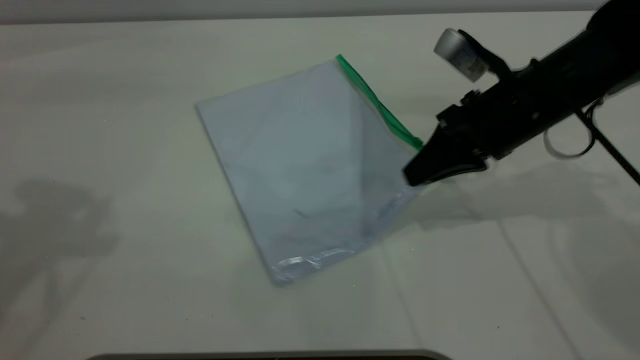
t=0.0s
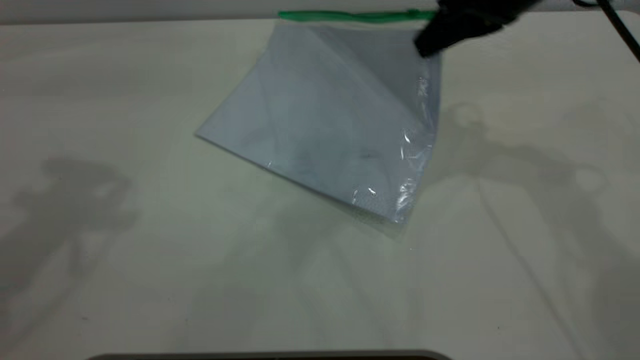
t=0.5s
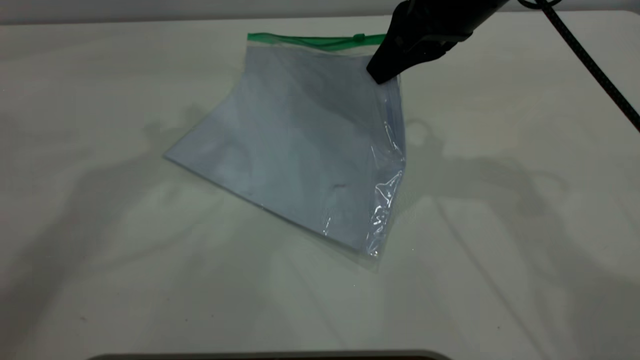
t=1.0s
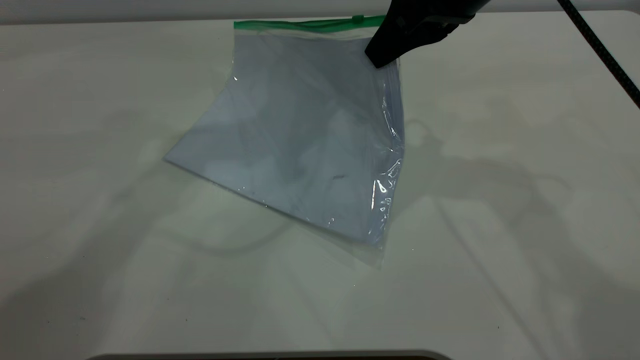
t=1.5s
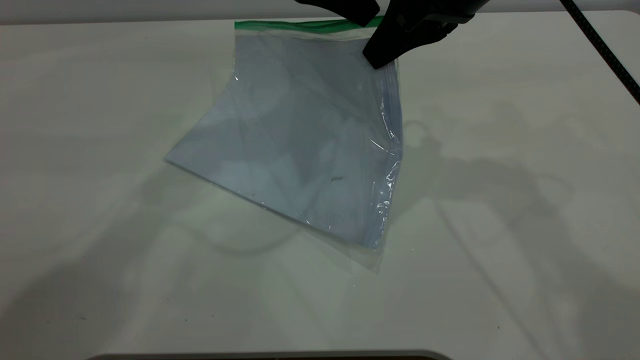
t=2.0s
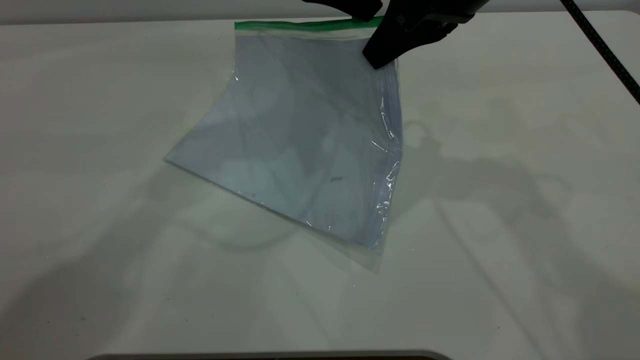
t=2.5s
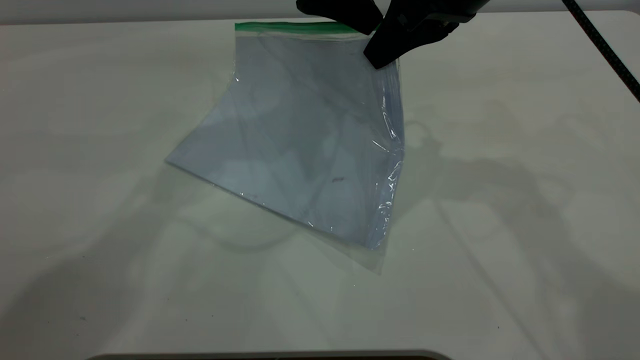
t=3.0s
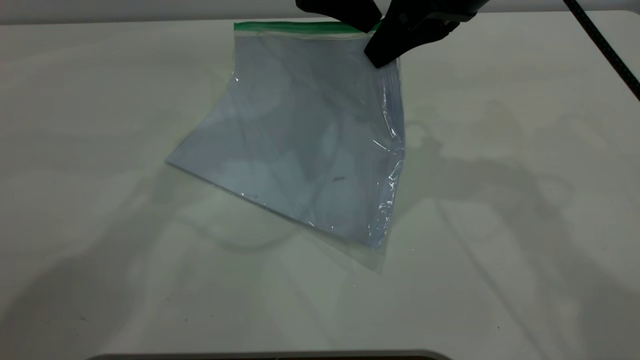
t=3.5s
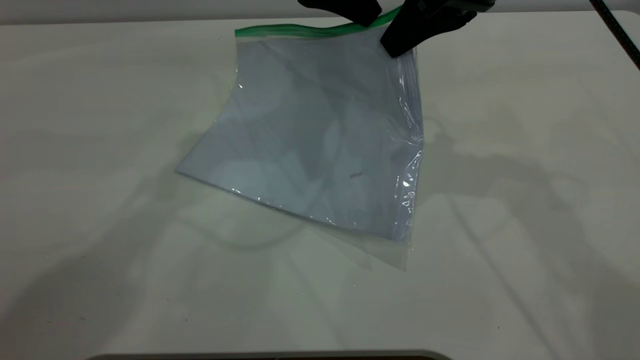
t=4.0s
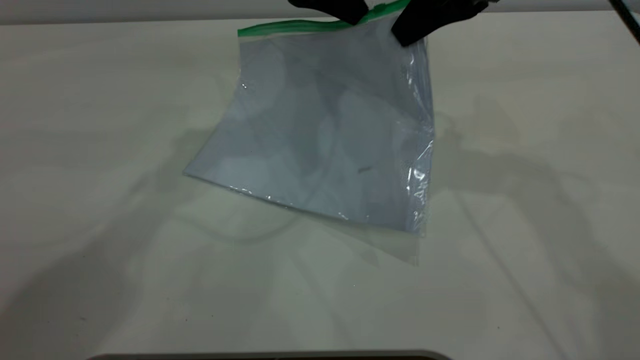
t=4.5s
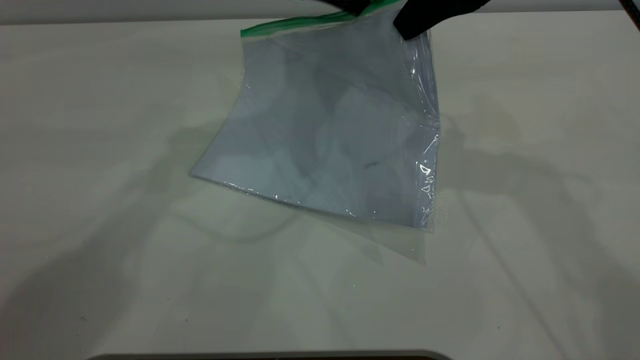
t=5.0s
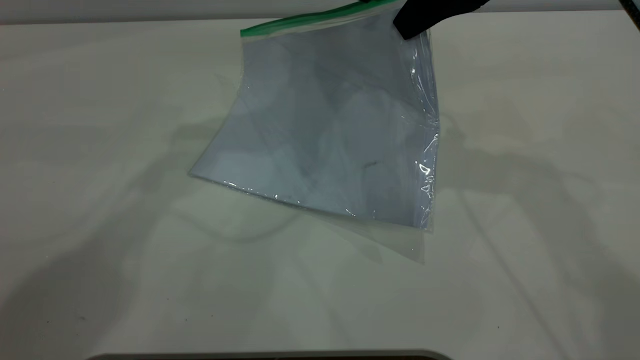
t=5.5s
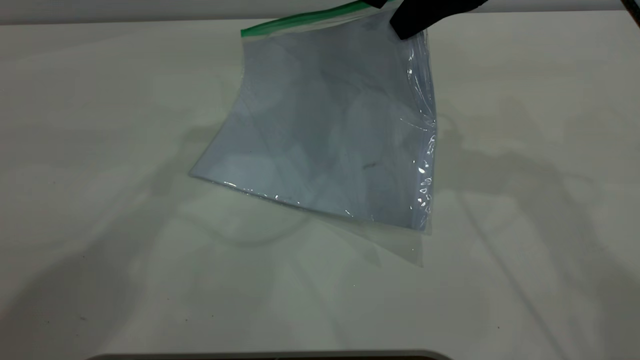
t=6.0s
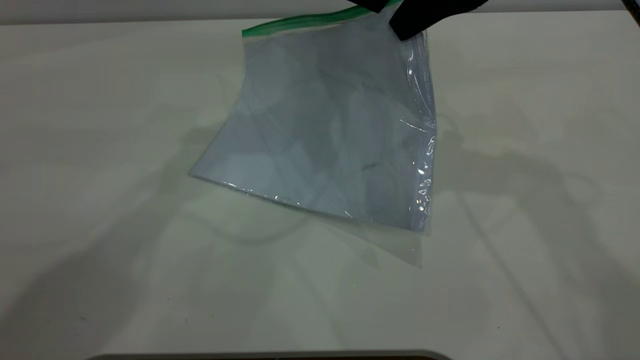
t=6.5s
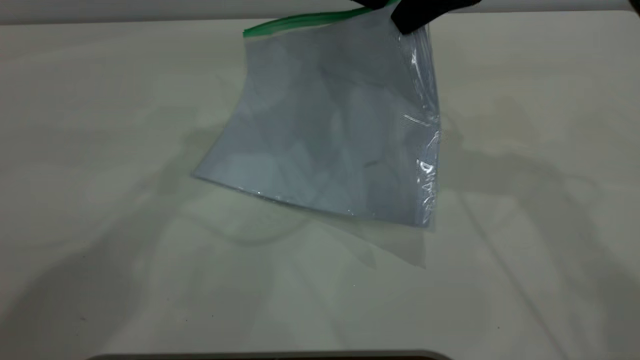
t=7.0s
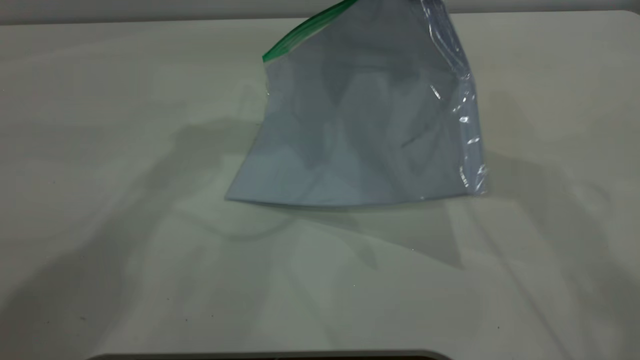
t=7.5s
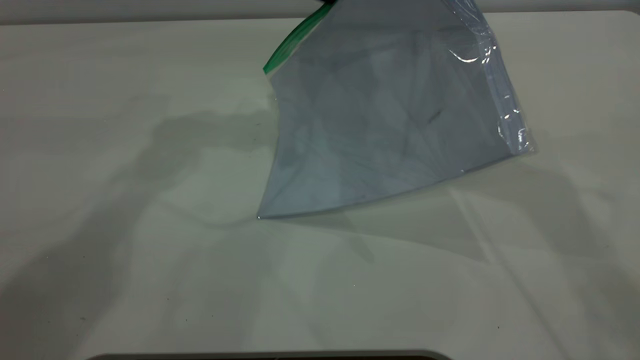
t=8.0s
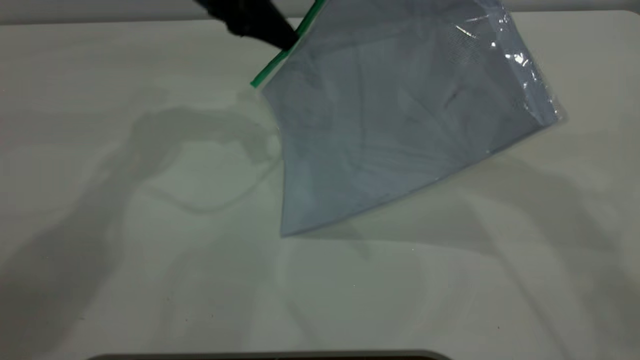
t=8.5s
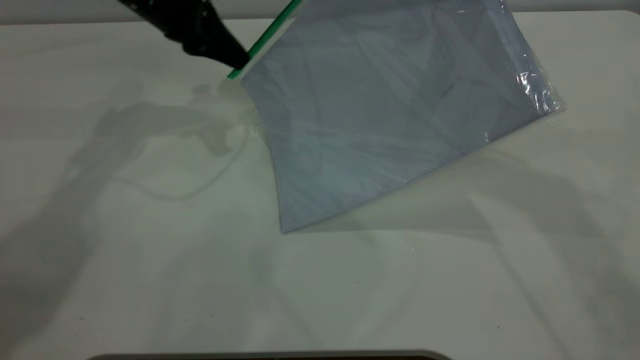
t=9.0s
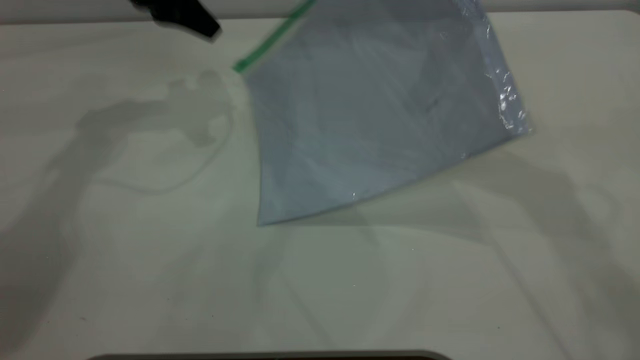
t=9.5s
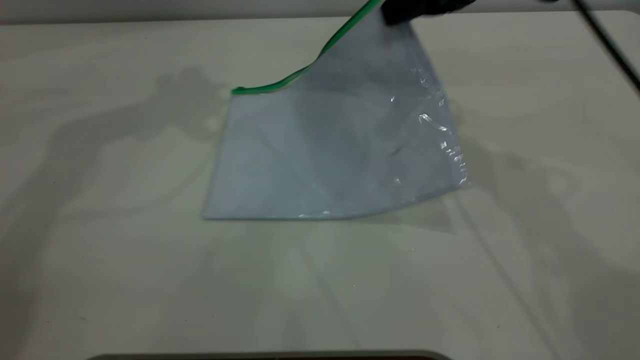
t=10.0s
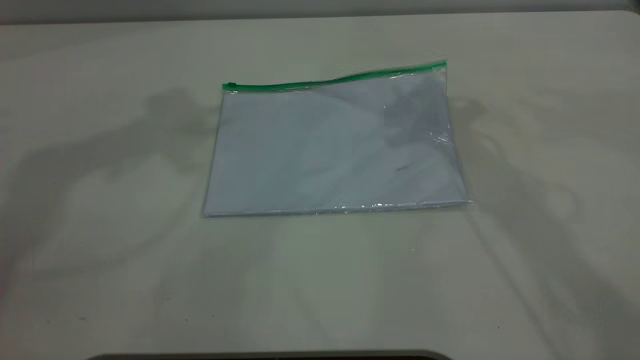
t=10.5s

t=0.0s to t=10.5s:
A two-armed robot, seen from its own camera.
Step, t=0.0s to t=9.0s: Pulling up the zipper on the transparent plastic bag with the left gripper to close it.
Step, t=9.5s to t=10.0s: Place the transparent plastic bag.
t=0.0s to t=2.0s: The left gripper travels to the right, forward and downward by roughly 30 cm. Meanwhile the right gripper is displaced upward and to the left by approximately 15 cm.
t=2.0s to t=4.0s: The left gripper closes up.
t=4.0s to t=6.5s: The left gripper opens, then closes once more.
t=6.5s to t=8.5s: The right gripper travels upward by roughly 10 cm; the left gripper shifts some 10 cm to the left and downward.
t=8.5s to t=10.5s: The left gripper goes approximately 30 cm upward, and opens its fingers; the right gripper reaches about 10 cm downward, then returns, and opens up.

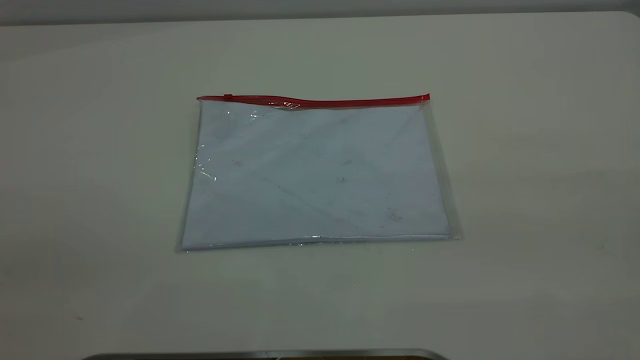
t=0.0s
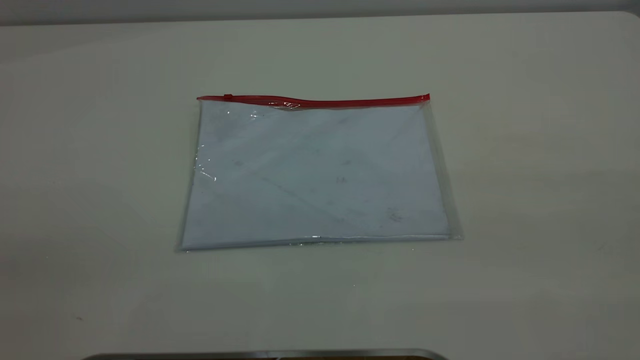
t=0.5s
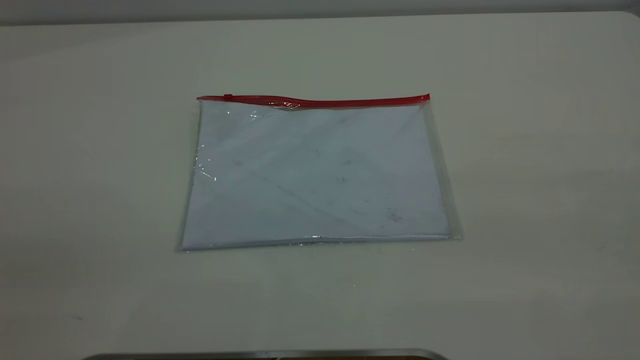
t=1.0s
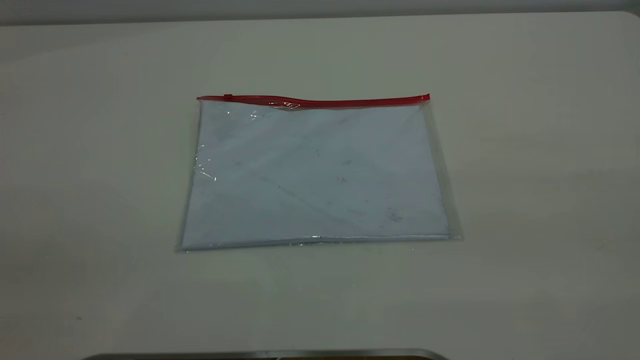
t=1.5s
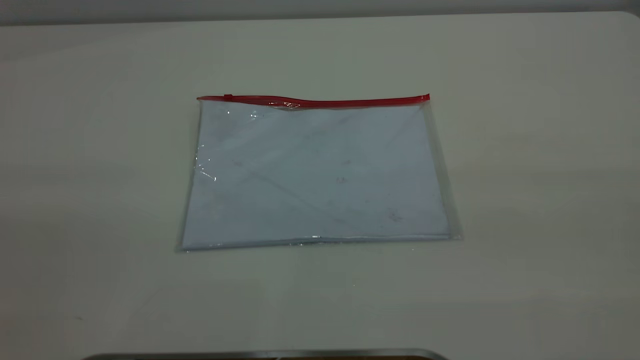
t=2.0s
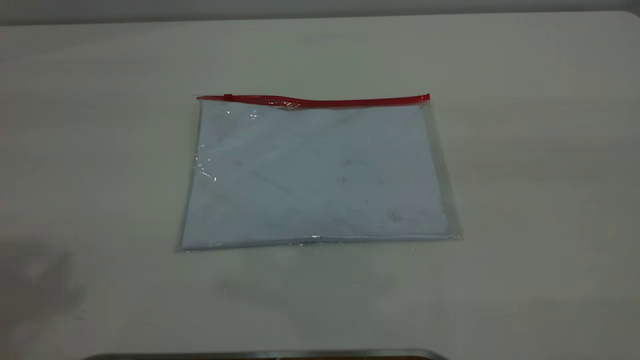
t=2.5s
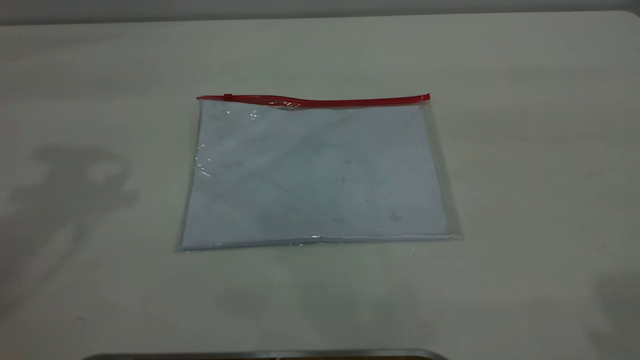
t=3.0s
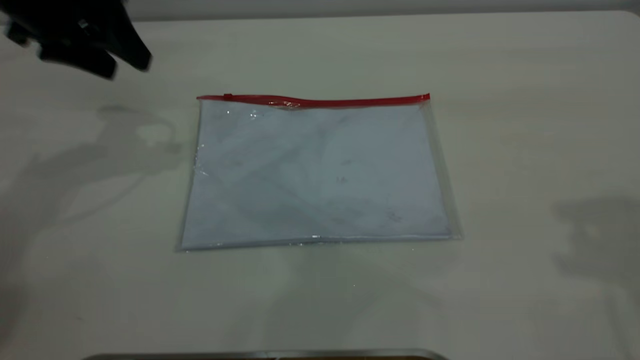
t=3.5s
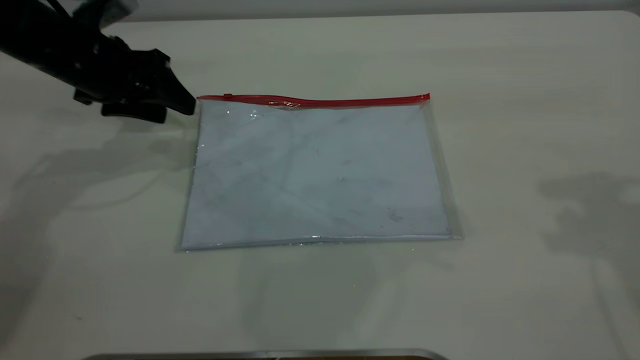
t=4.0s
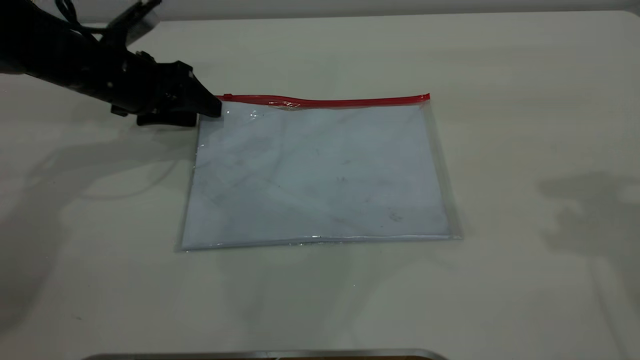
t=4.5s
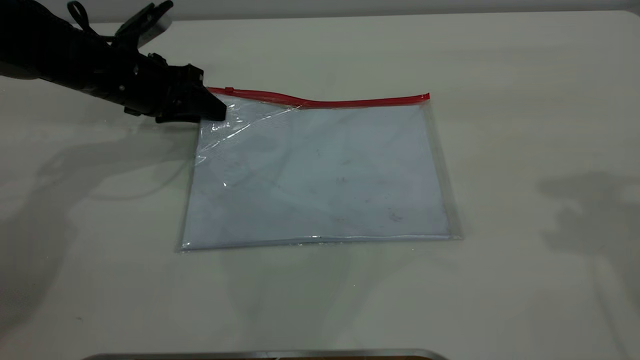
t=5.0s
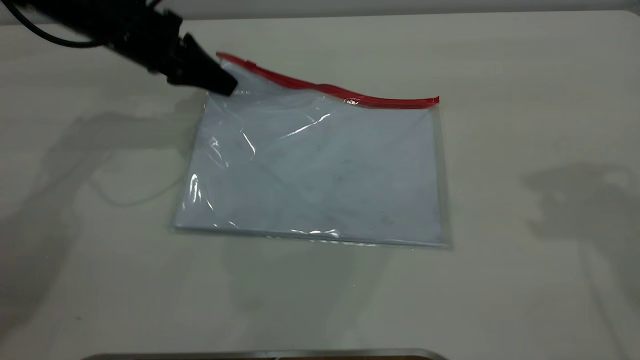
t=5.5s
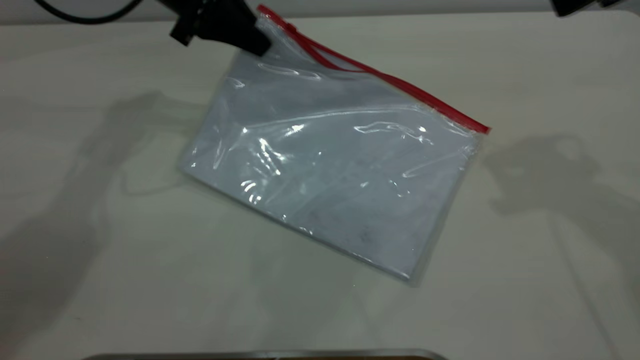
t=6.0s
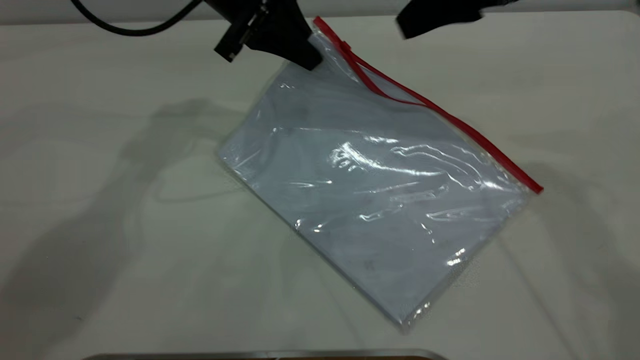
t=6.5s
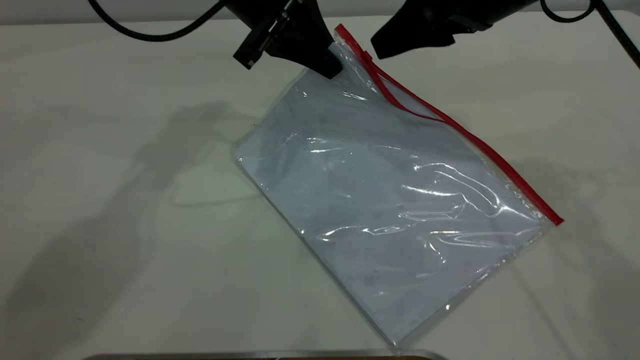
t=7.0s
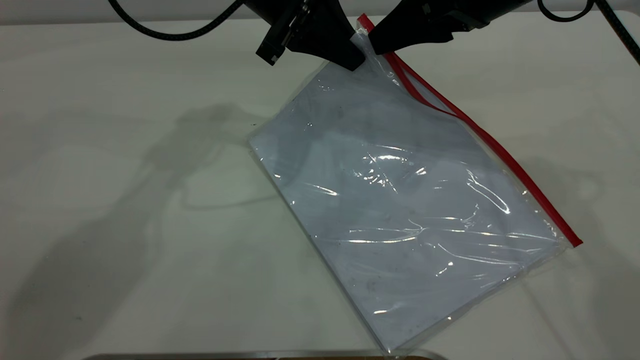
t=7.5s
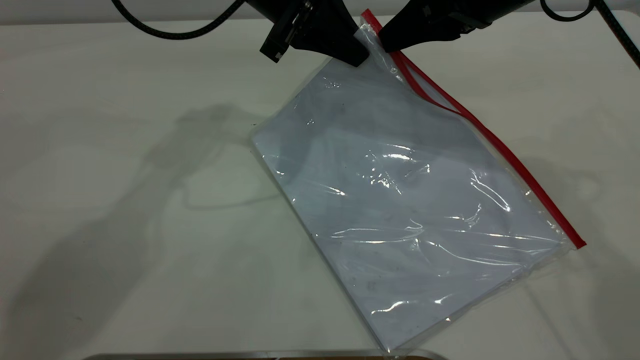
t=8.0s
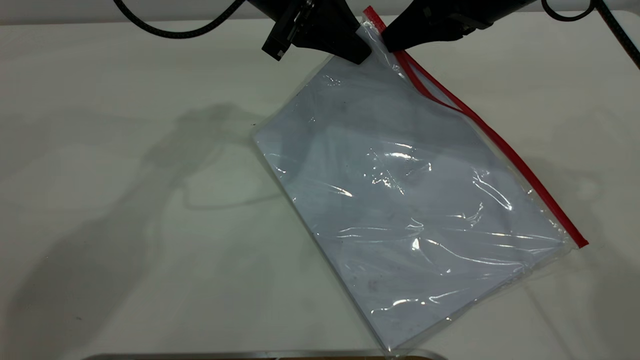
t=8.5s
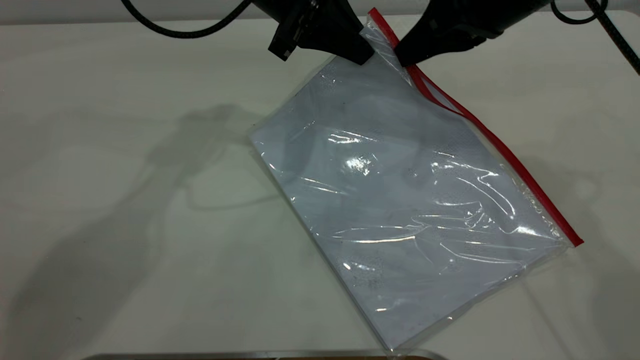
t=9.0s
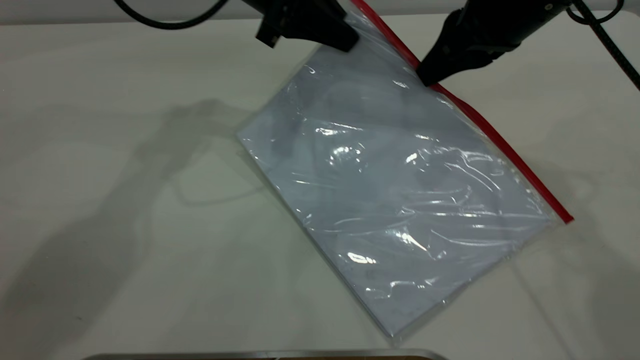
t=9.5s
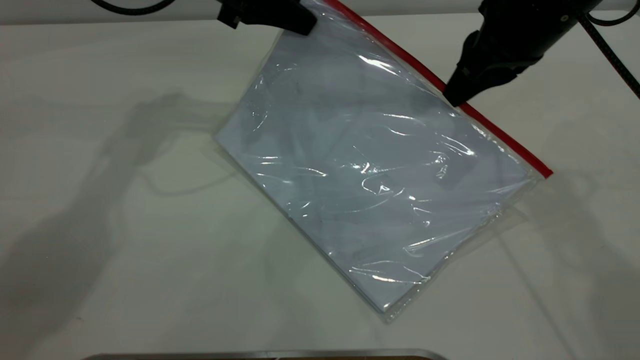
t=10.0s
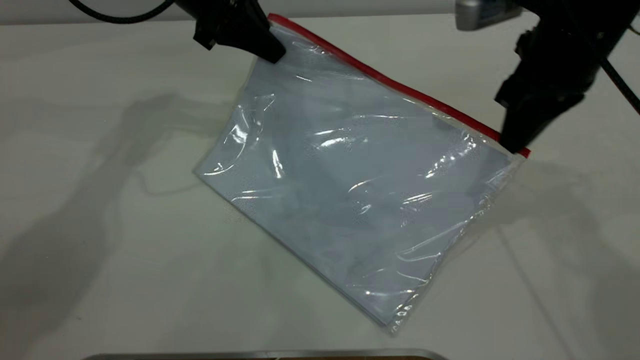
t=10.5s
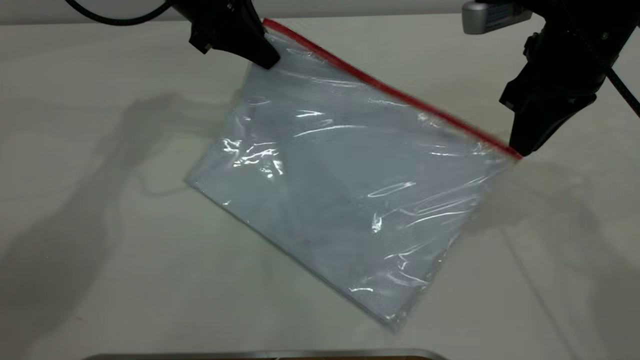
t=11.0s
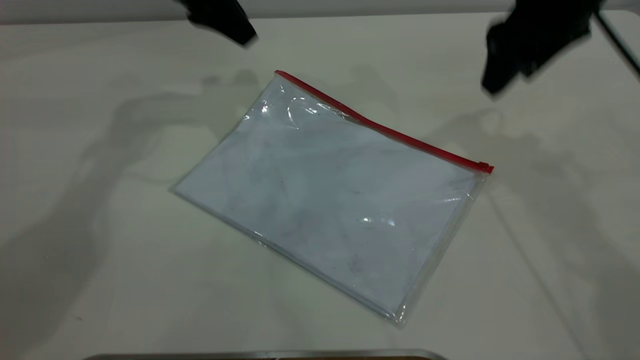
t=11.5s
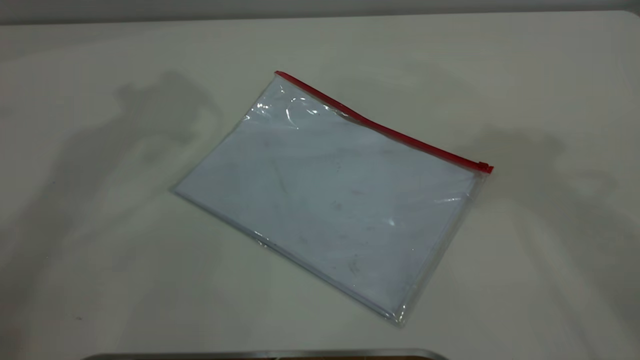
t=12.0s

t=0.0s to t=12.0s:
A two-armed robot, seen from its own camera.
Step, t=0.0s to t=5.5s: Pick up the transparent plastic bag with the left gripper.
Step, t=6.0s to t=11.0s: Pulling up the zipper on the transparent plastic bag with the right gripper to close it.
t=2.0s to t=4.0s: The left gripper travels forward and downward by roughly 50 cm.
t=4.0s to t=6.0s: The right gripper travels forward by some 5 cm; the left gripper travels to the right, upward and forward by approximately 15 cm, and closes up.
t=6.0s to t=8.0s: The left gripper goes approximately 10 cm to the right. Meanwhile the right gripper shifts roughly 10 cm to the left and downward, and closes up.
t=8.0s to t=10.0s: The left gripper is displaced to the left by roughly 5 cm.
t=10.0s to t=12.0s: The grippers both shift upward by about 25 cm. The left gripper opens its fingers. The right gripper opens.
